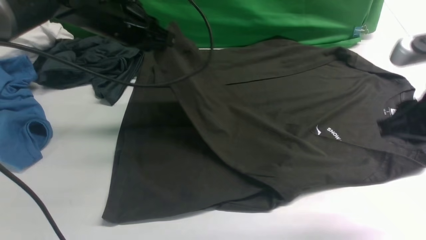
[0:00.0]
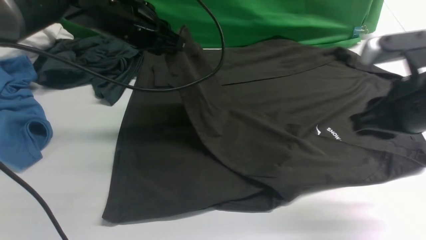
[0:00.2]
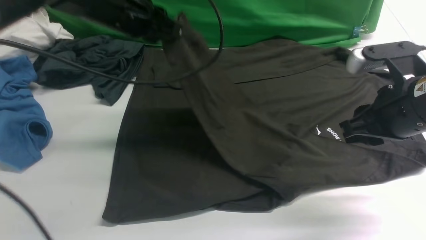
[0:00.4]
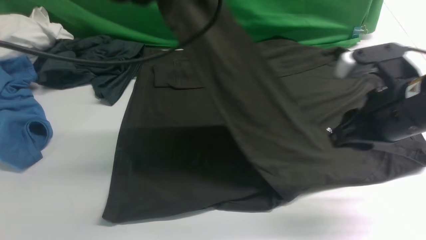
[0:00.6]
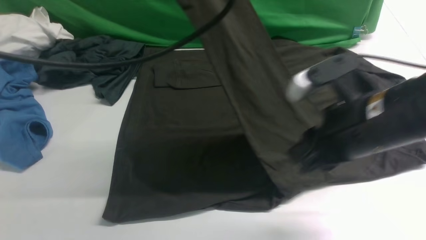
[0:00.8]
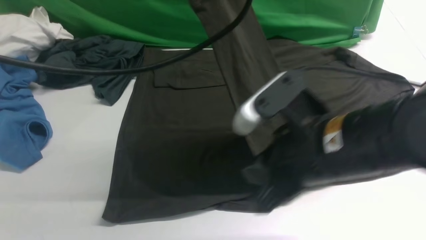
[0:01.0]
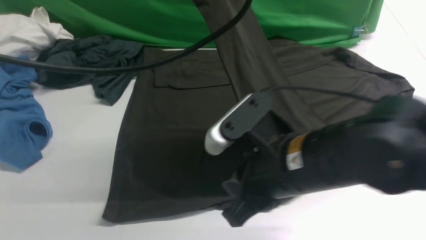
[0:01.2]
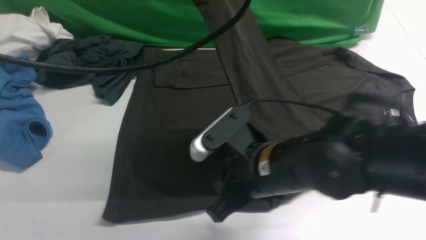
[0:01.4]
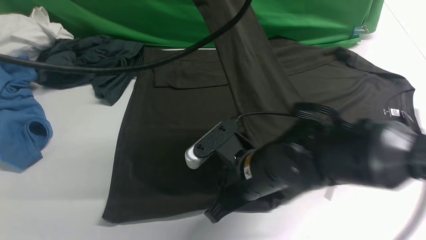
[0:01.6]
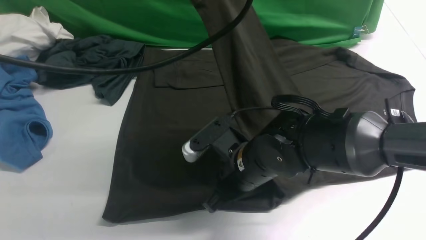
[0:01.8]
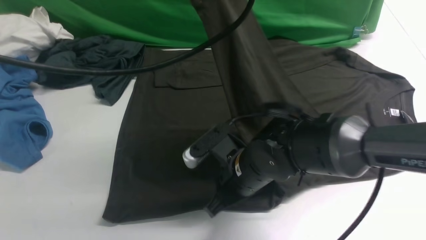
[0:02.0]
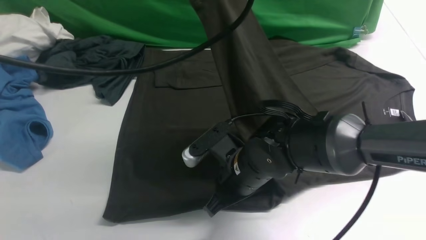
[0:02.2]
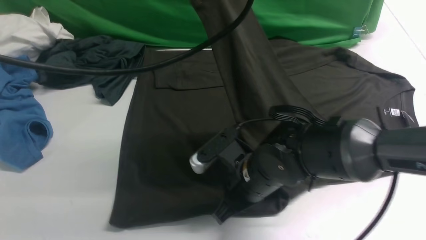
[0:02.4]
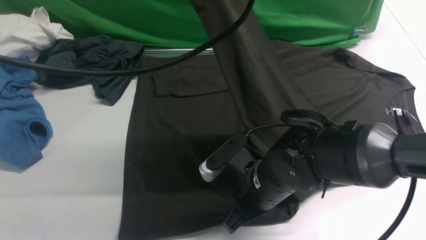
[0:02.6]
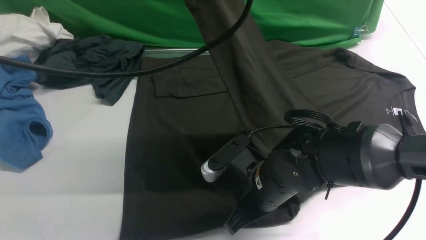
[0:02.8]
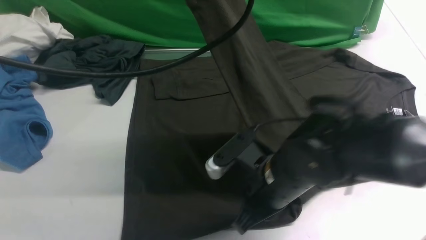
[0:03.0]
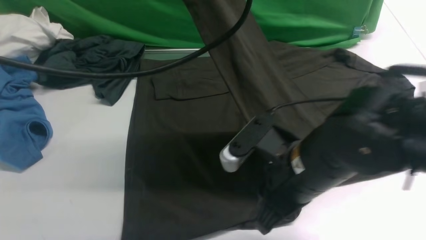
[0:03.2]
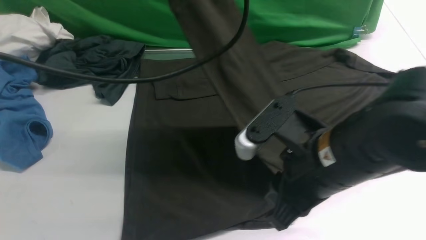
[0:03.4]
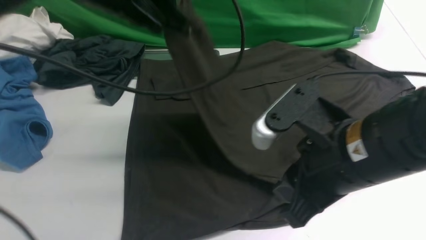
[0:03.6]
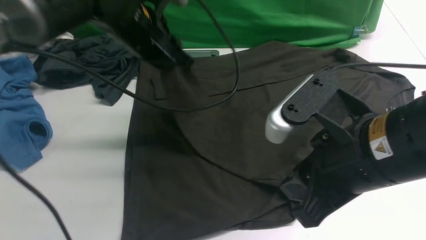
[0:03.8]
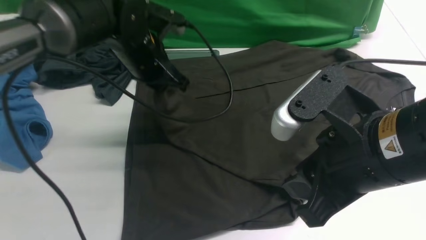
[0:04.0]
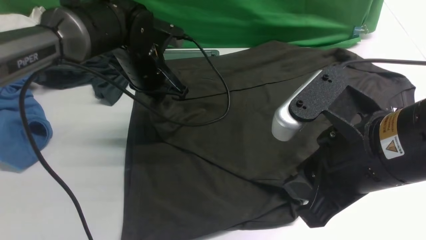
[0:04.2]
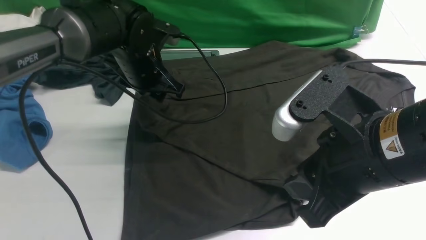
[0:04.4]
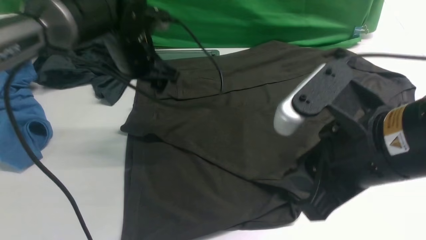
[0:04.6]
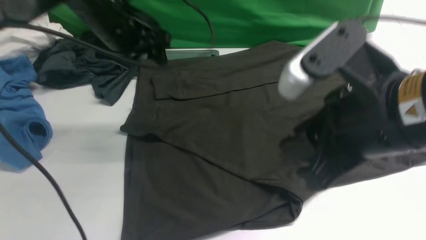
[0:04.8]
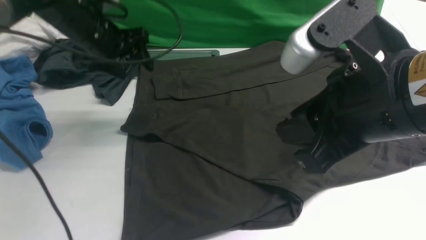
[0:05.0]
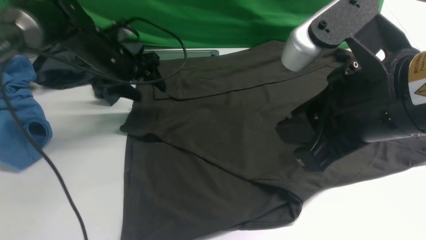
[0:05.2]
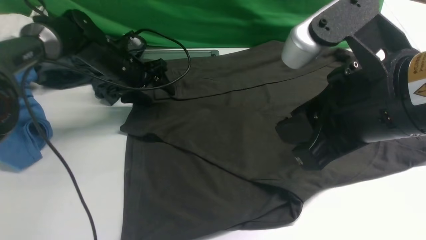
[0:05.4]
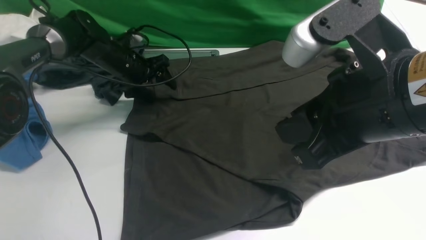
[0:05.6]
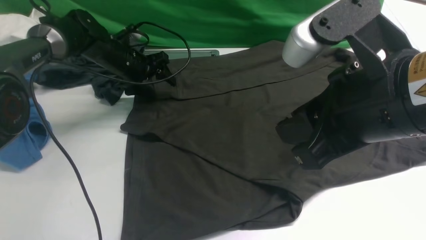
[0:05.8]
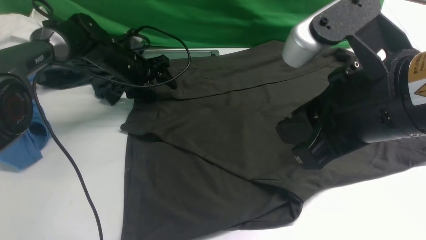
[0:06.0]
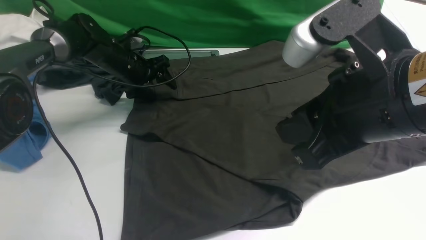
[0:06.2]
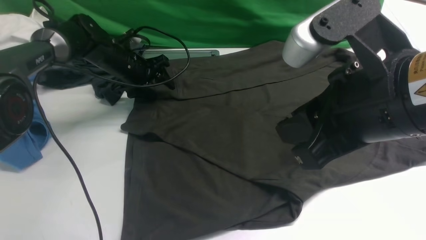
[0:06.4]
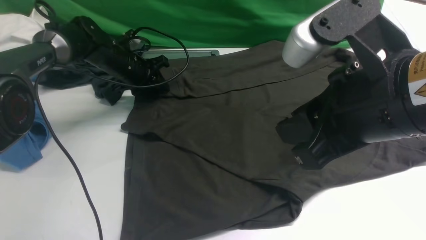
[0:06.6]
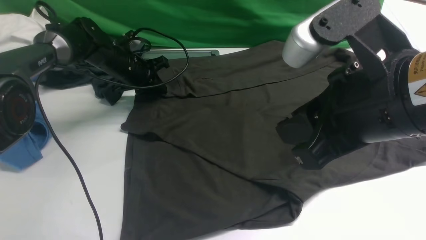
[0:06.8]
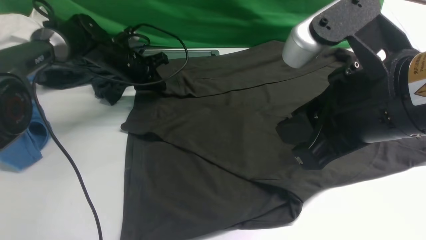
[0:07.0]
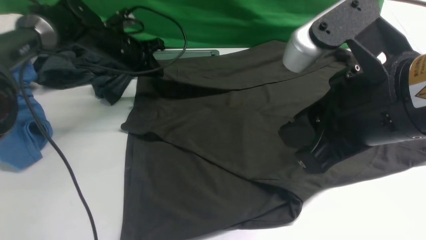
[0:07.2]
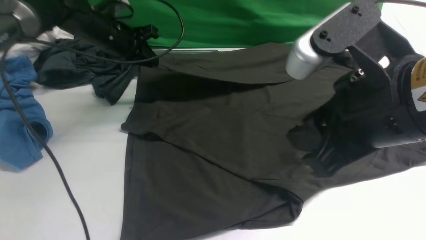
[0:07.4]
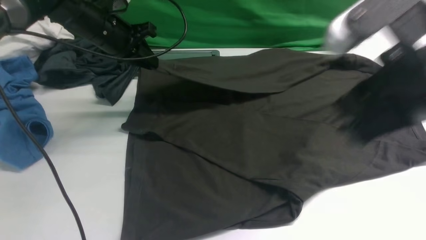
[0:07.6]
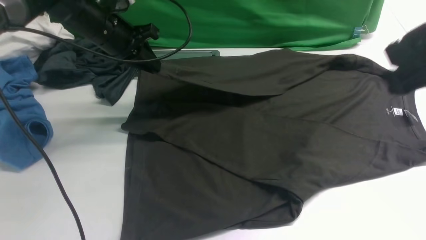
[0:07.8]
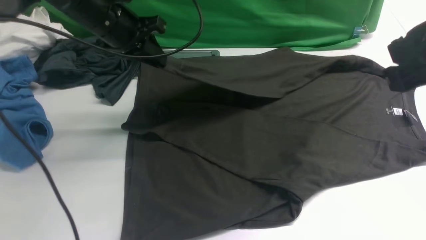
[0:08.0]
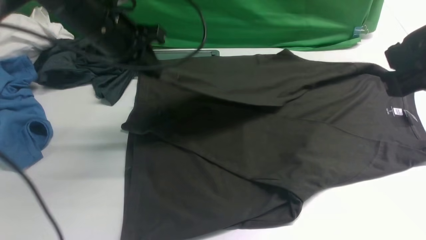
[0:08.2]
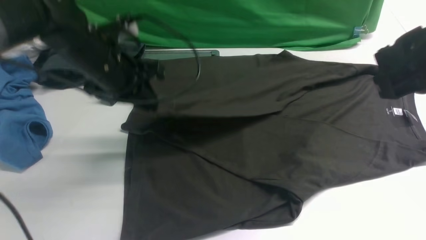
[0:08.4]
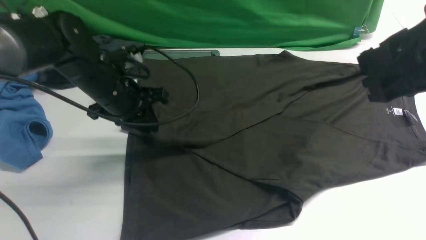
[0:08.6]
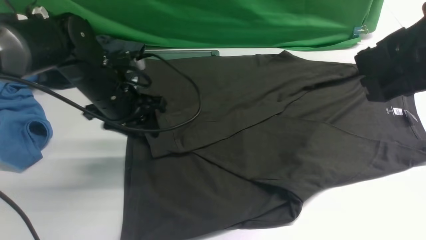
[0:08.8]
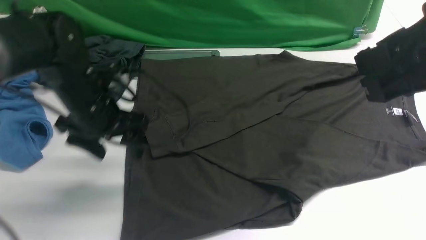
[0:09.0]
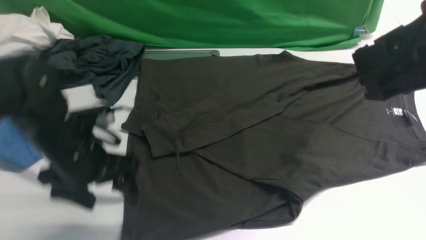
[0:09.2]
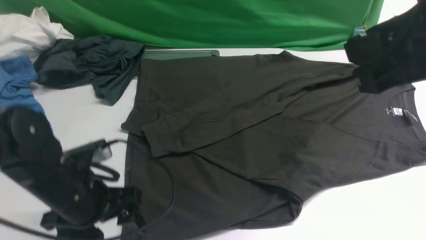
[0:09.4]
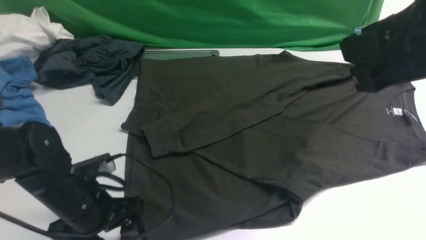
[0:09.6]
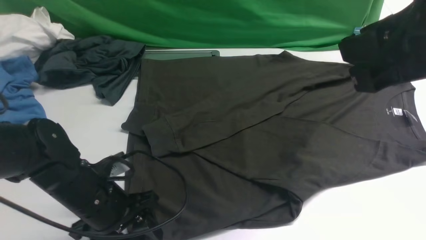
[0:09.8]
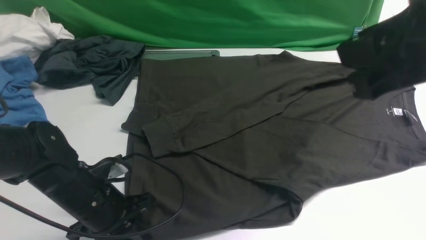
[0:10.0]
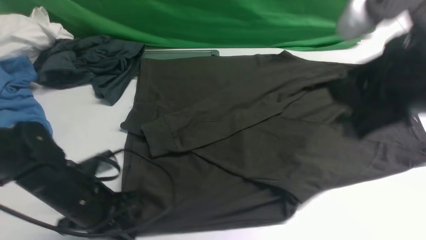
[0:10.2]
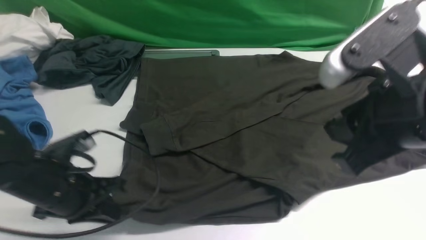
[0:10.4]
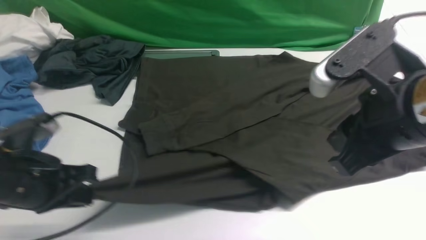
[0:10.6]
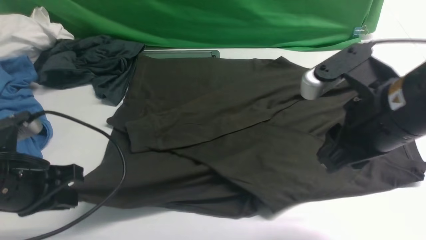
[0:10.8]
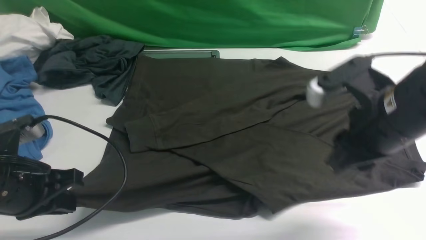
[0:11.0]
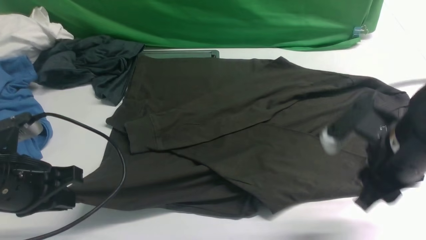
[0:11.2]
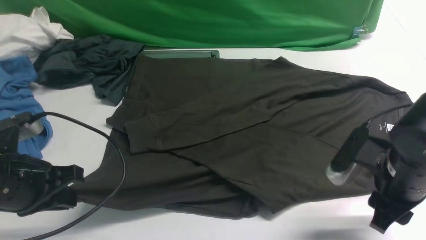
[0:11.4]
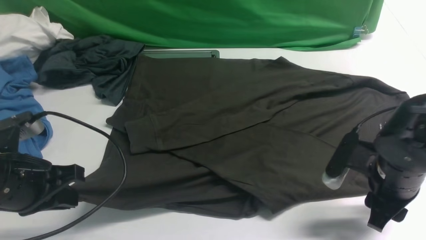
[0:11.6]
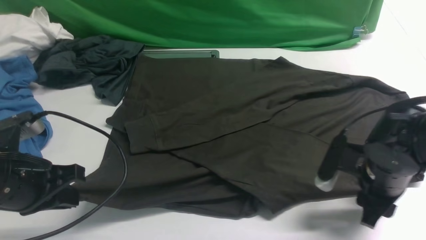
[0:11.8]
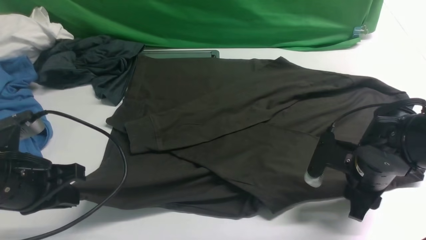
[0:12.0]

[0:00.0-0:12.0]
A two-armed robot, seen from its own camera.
Step, 0.0 to 4.6 s: use the left arm to drag and place the cuff at the centered position on the left edge of the fabric.
Step, 4.8 to 6.6 s: use the left arm to clamp the cuff farthest from it.
Step, 6.8 to 8.8 s: use the left arm to drag and drop the cuff onto the cuff closest to the left arm.
0.0 to 1.6 s: The left gripper heads upward and backward, covering roughly 15 cm. Meanwhile the right gripper moves to the left and downward, approximately 25 cm, and closes its fingers.
1.6 to 3.0 s: The grippers move only a little.
3.0 to 4.4 s: The left gripper heads downward and forward, covering some 20 cm, and opens, while the right gripper travels upward, to the right and backward by about 15 cm.
4.4 to 6.0 s: The right gripper changes place by some 5 cm. The left gripper heads forward, downward and to the left, covering some 15 cm.
6.0 to 7.6 s: The left gripper heads upward, covering approximately 10 cm, and closes up.
7.6 to 9.0 s: The left gripper travels backward by roughly 15 cm, and opens.
9.0 to 10.4 s: The left gripper goes some 10 cm backward, and closes; the right gripper heads downward, covering roughly 5 cm.
10.4 to 12.0 s: The left gripper moves about 5 cm, while the right gripper heads downward, covering approximately 20 cm.

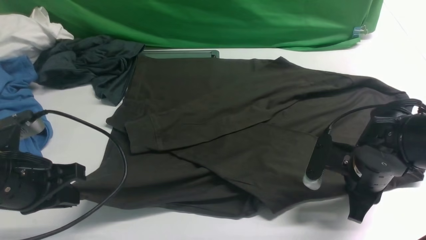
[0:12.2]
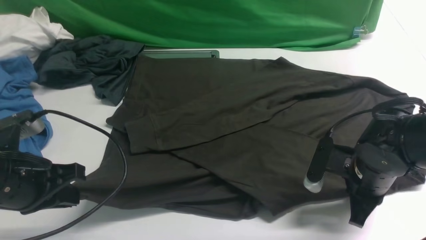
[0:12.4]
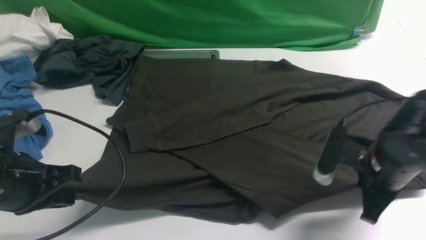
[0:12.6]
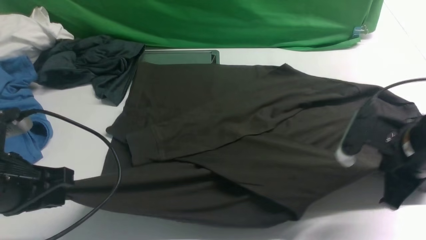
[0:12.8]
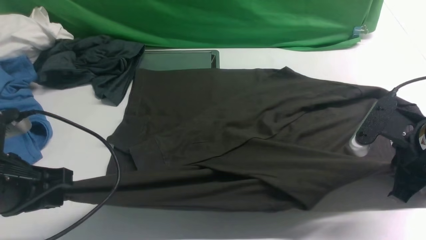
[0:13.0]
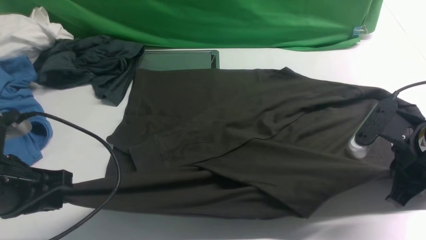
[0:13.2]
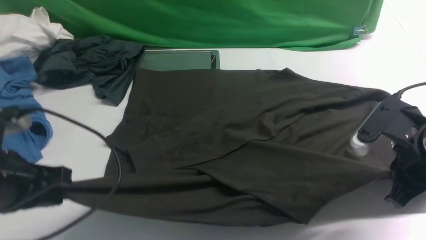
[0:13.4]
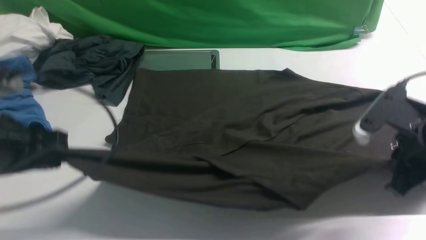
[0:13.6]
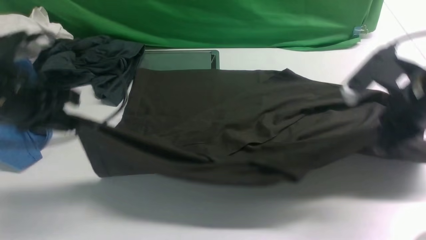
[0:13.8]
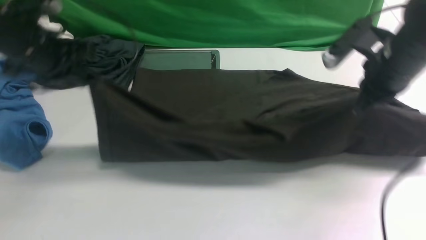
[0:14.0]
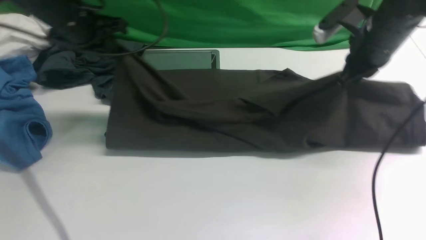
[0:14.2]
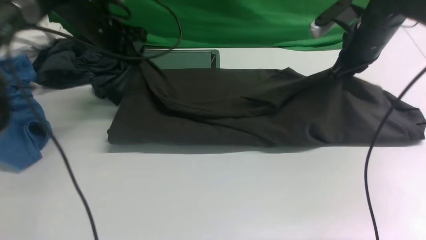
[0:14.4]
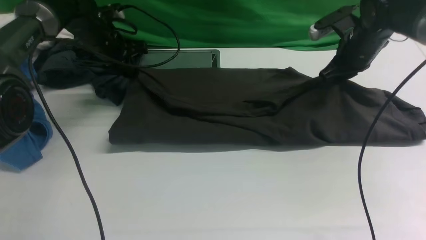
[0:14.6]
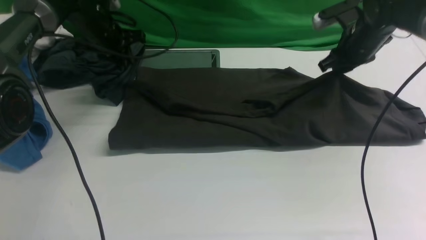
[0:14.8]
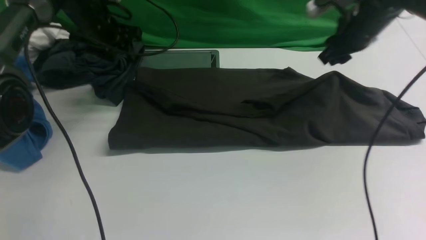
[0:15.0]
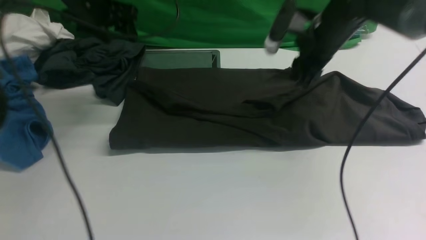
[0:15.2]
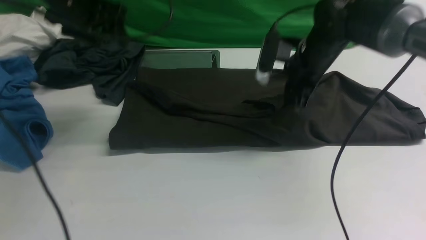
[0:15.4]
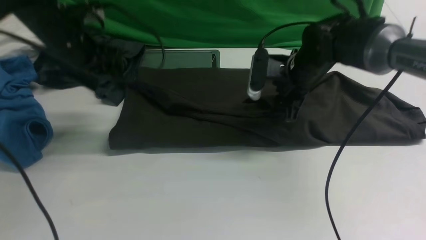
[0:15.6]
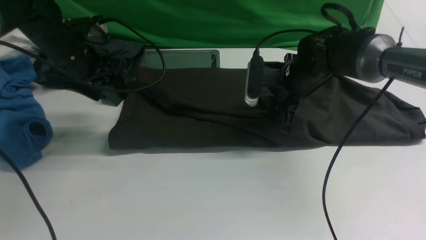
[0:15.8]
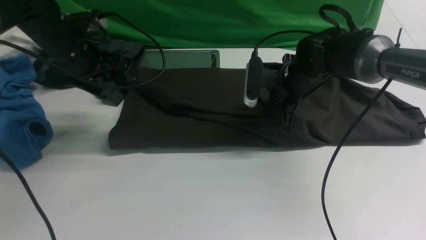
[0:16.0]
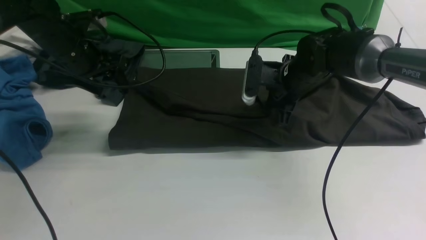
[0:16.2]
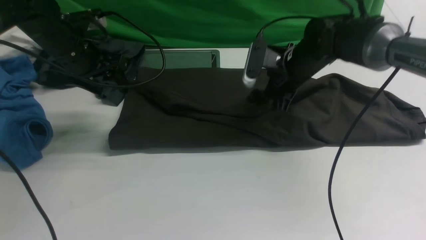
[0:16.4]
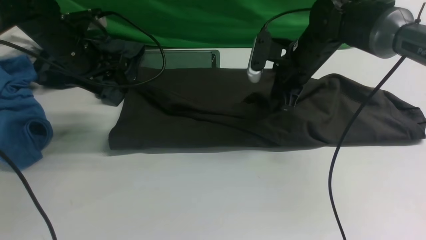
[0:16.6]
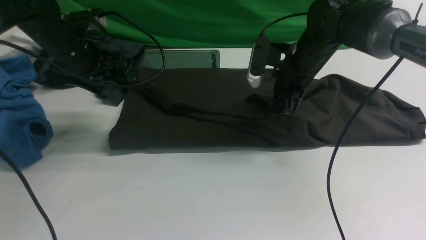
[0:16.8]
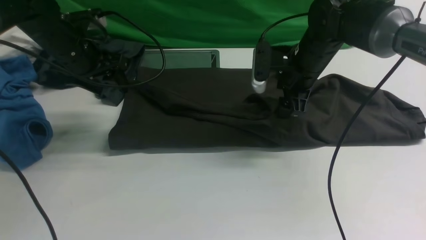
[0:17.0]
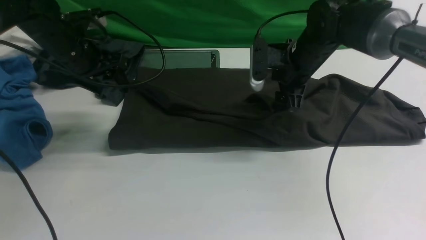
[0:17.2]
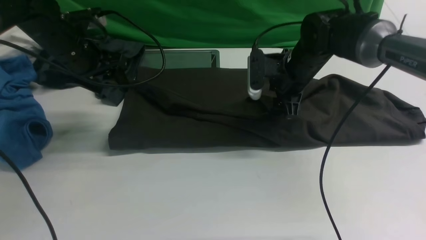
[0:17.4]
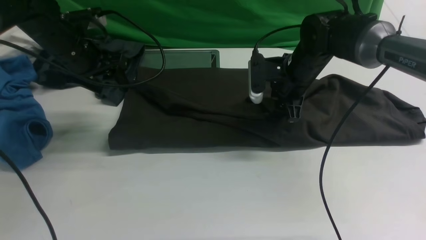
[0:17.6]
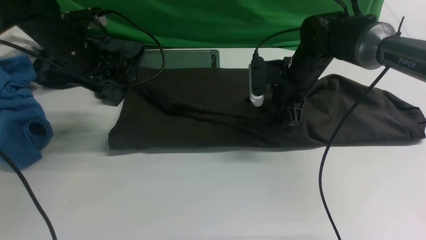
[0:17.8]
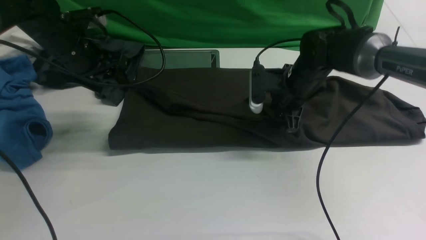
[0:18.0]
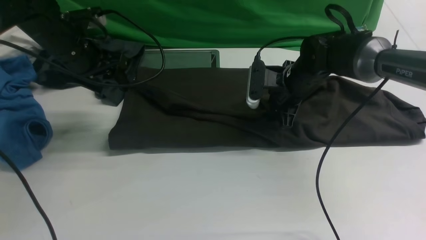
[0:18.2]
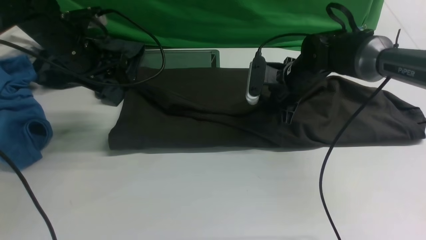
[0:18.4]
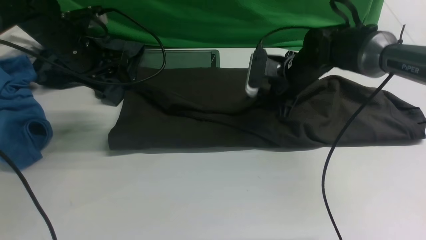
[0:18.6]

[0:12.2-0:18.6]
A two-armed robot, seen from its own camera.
12.2 to 13.8 s: The right gripper goes approximately 15 cm upward, and closes up, while the left gripper shifts about 10 cm forward and upward.
13.8 to 15.4 s: The right gripper is displaced forward, to the left and downward by some 15 cm, and opens its fingers, while the left gripper moves forward, roughly 15 cm, and opens its fingers.
15.4 to 17.0 s: The right gripper closes and opens again. The left gripper changes place by approximately 5 cm.
17.0 to 18.6 s: The right gripper closes.
